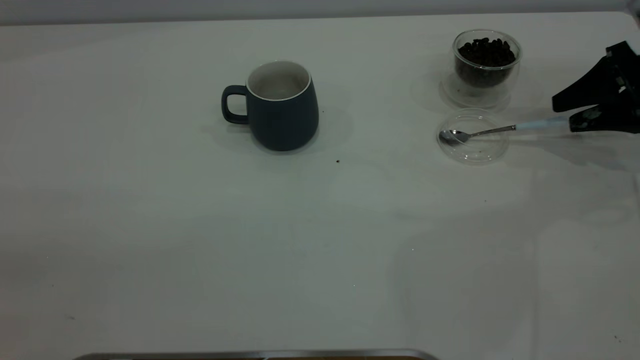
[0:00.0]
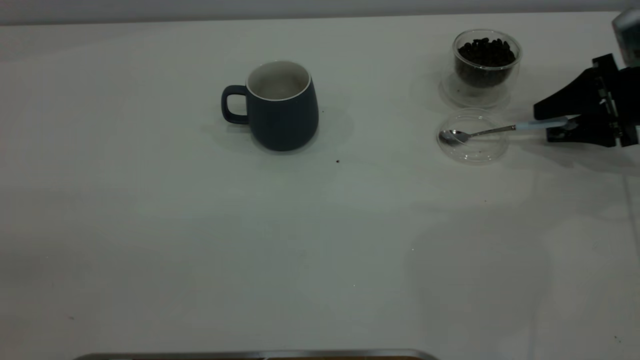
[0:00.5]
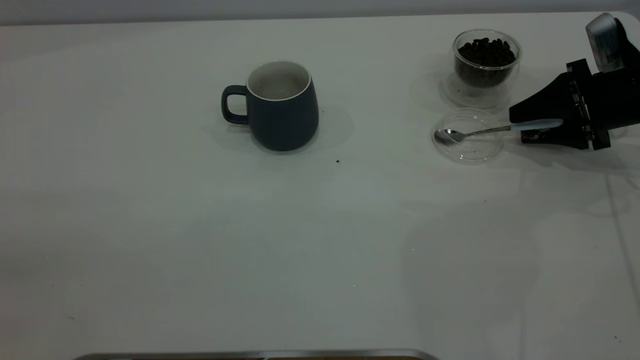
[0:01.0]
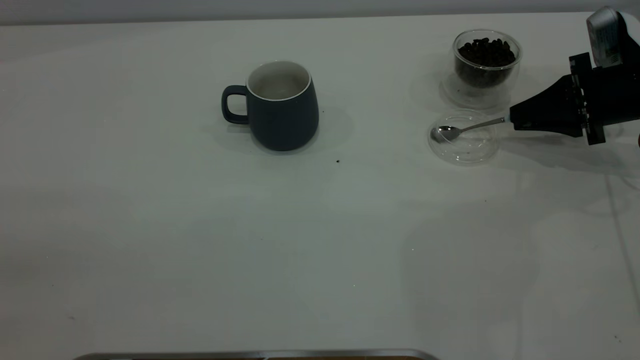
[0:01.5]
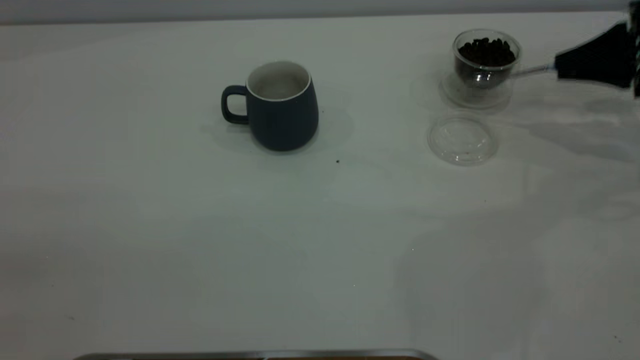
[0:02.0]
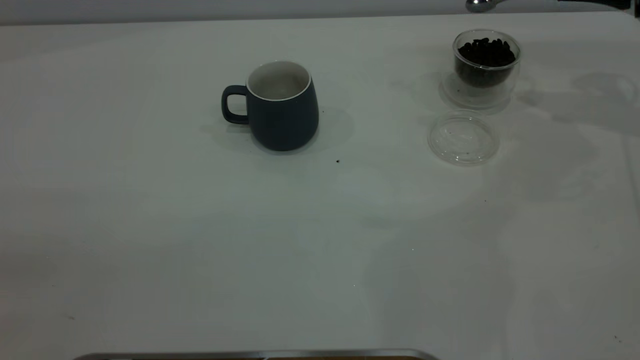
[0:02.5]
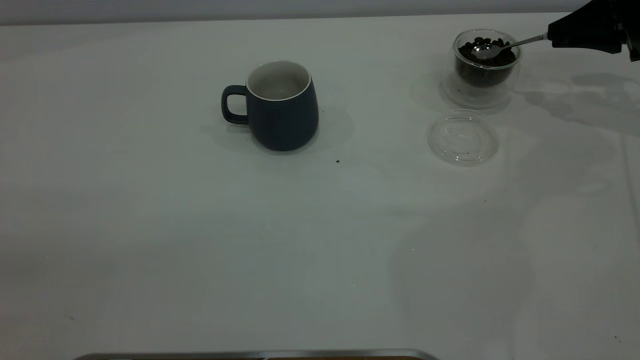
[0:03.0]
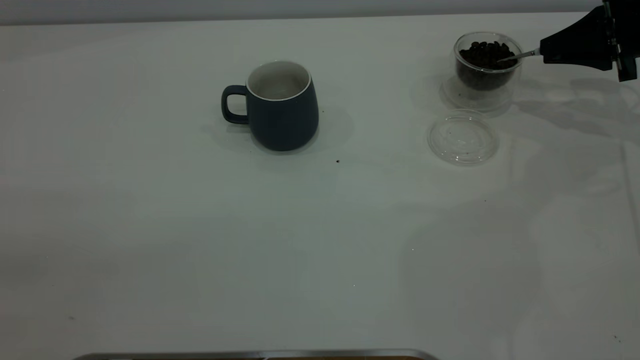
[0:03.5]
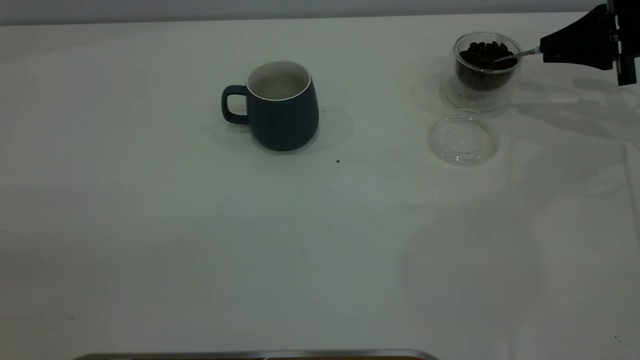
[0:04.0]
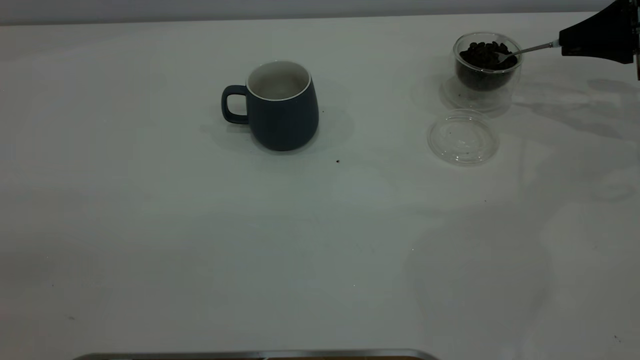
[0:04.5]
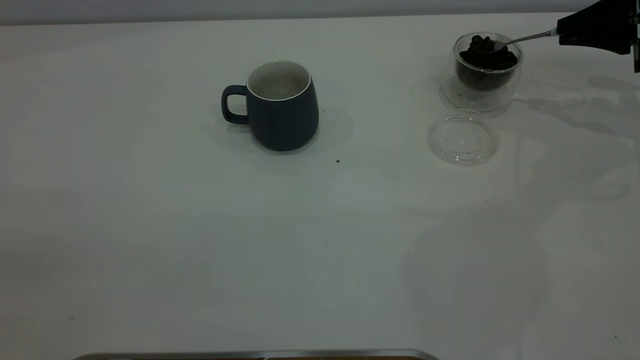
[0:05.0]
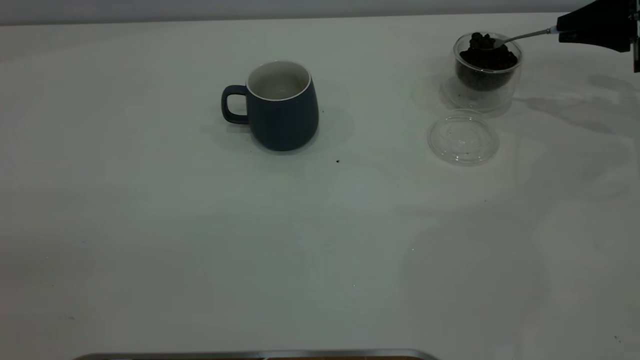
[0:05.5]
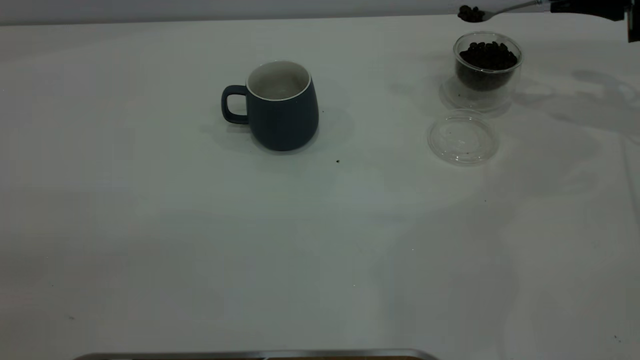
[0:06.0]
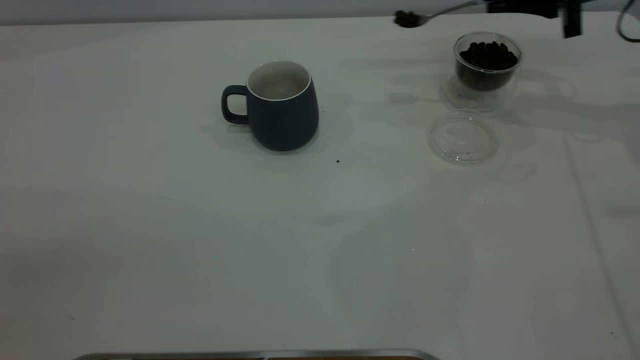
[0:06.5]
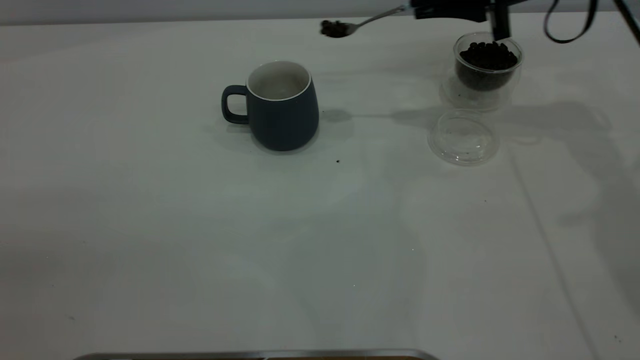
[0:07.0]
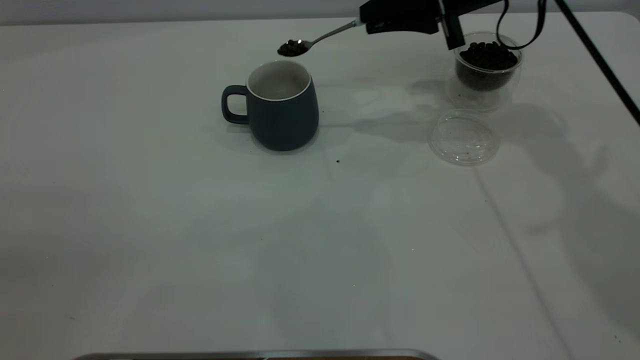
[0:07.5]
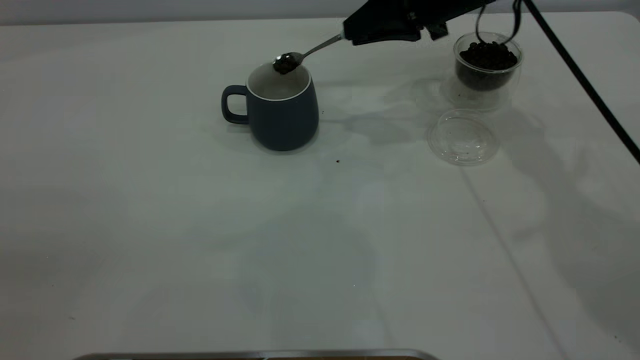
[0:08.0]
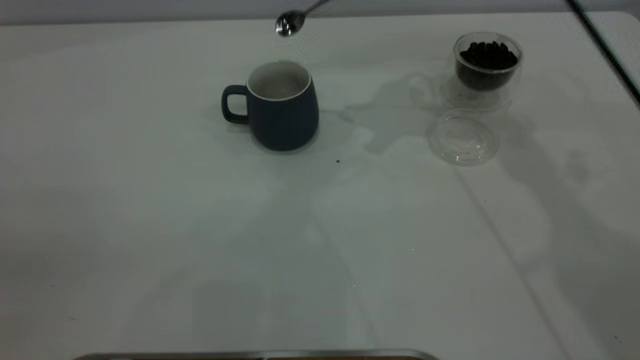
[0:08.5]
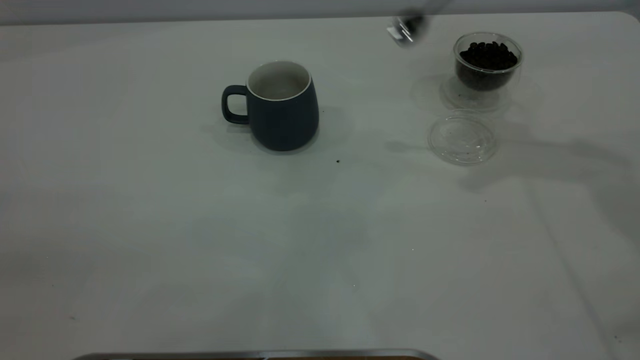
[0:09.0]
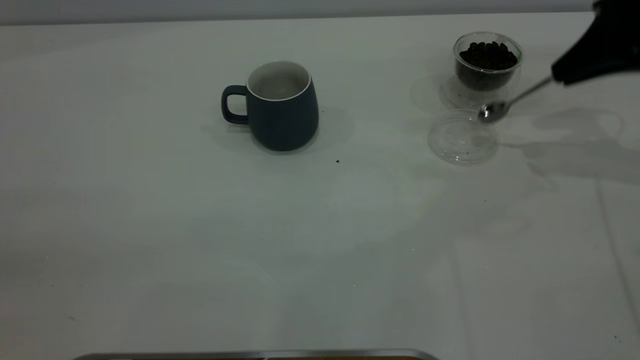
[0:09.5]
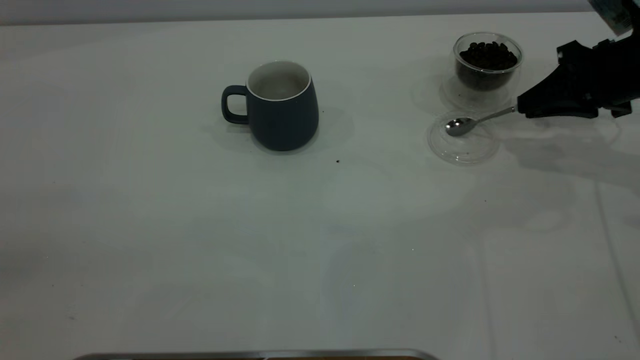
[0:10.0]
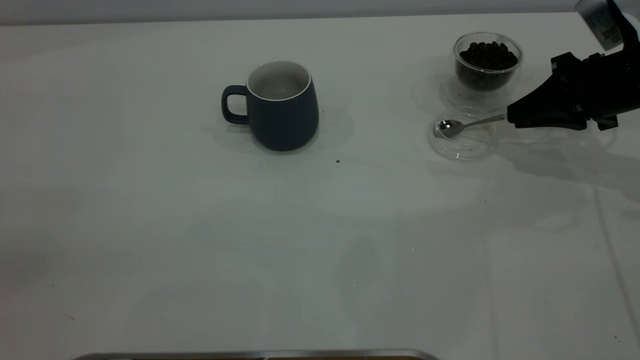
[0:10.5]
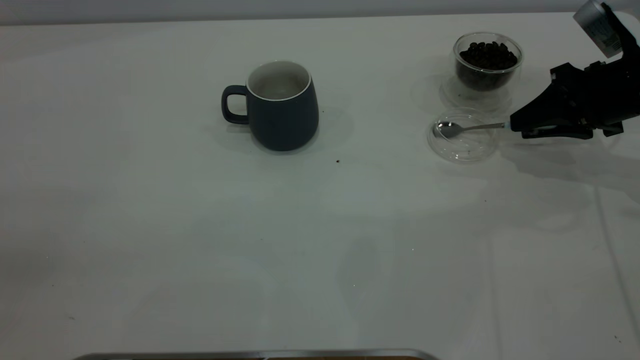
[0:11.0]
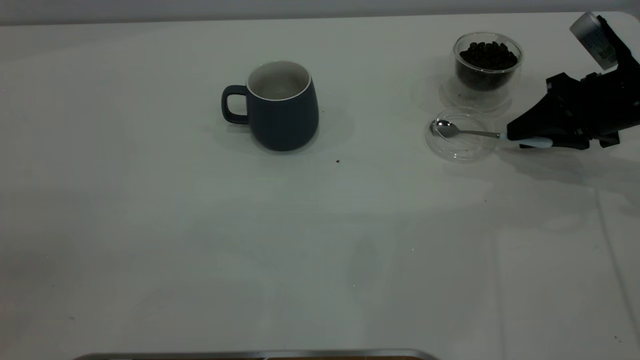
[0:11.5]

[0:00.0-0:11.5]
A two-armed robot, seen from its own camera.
Task of the whole recording: the left gripper place the grey cup in the center of the table, the right gripper take the blue spoon from the cup lid and scoop out the coffee beans from the coffee cup and put them into the grey cup, the right gripper put the spoon back into the cup lid.
Step, 0:02.0 to 0:08.0: Scoop a spoonful of beans into the cup.
0:00.0 to 0:02.0: The right gripper closes up.
0:04.0 to 0:06.0: The right gripper shifts approximately 5 cm upward.
0:06.0 to 0:07.5: The right gripper goes approximately 20 cm to the left.
0:07.5 to 0:09.5: The right gripper is displaced to the right and backward by roughly 20 cm.
0:09.5 to 0:11.5: The right gripper goes some 10 cm downward, and opens.

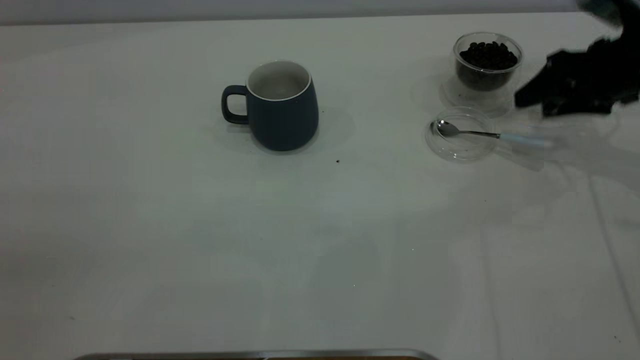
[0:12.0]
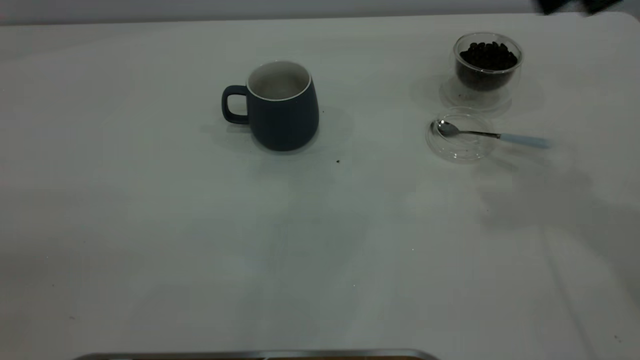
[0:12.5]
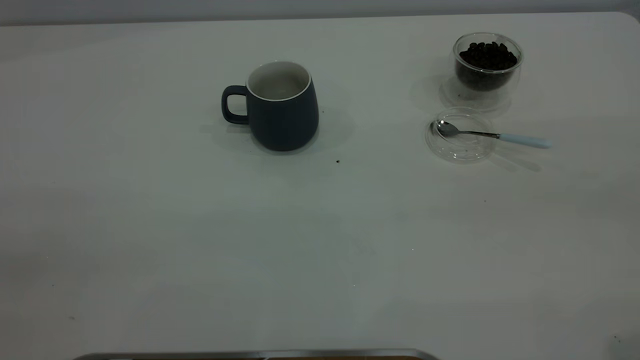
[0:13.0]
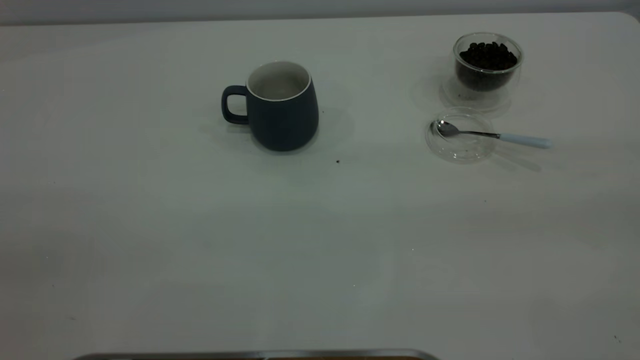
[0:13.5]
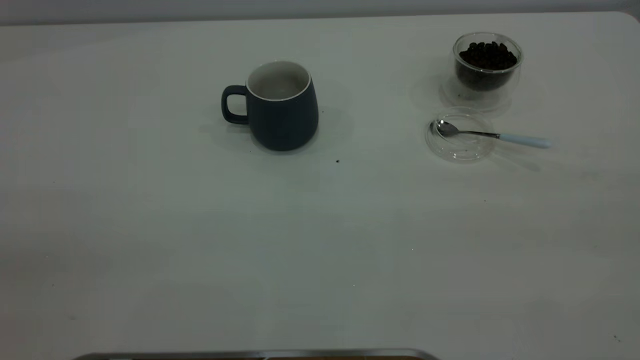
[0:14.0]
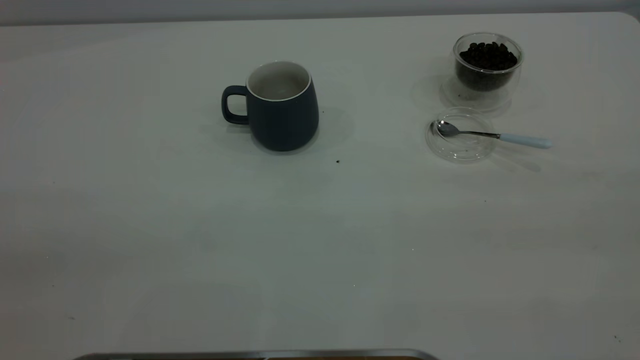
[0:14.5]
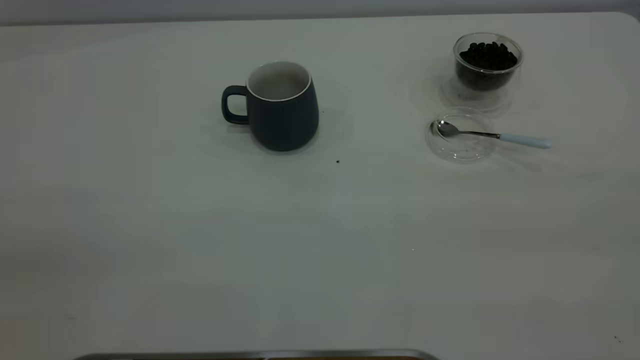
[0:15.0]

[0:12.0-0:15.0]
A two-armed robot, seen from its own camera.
Task of the whole recording: the left gripper place the grey cup in the center of the table, the right gripper take the blue spoon from the cup lid and scoop out the coffee beans from the coffee cup and put them into the grey cup, the right gripper put the spoon back into the cup lid.
0:12.0 to 0:13.5: The right gripper heads backward and upward, covering some 40 cm.
